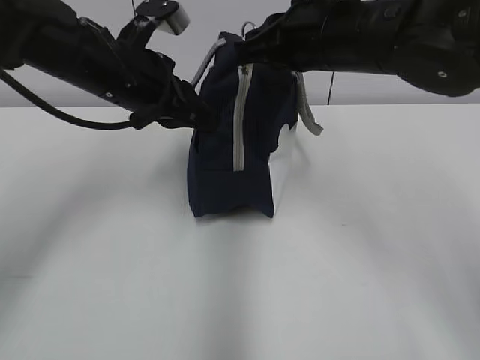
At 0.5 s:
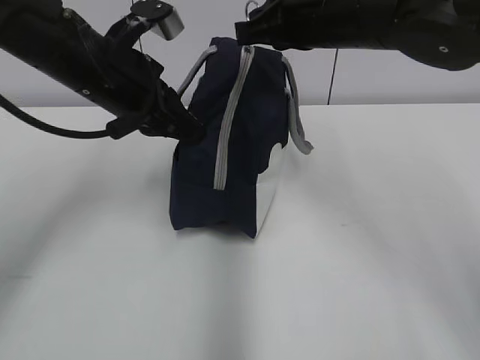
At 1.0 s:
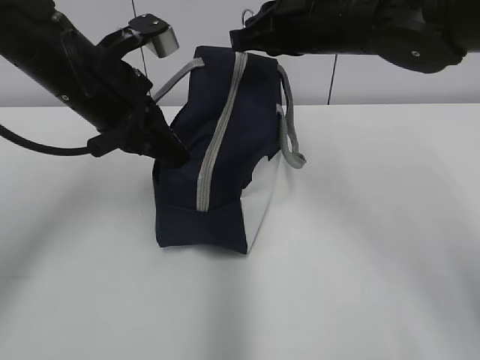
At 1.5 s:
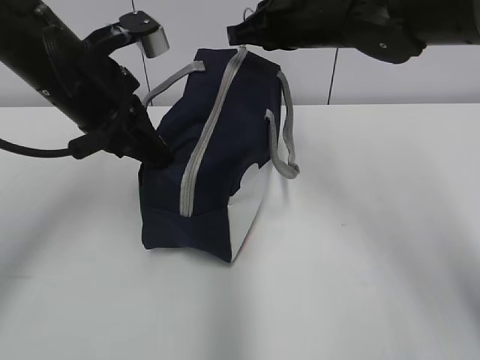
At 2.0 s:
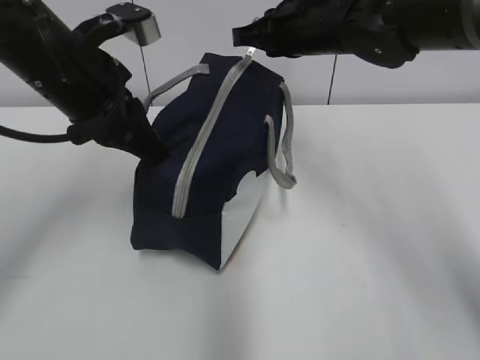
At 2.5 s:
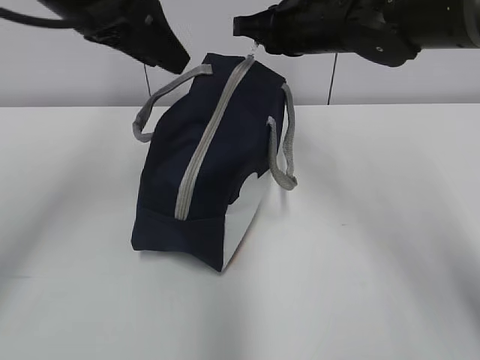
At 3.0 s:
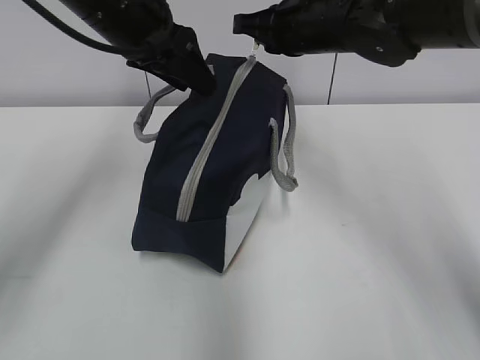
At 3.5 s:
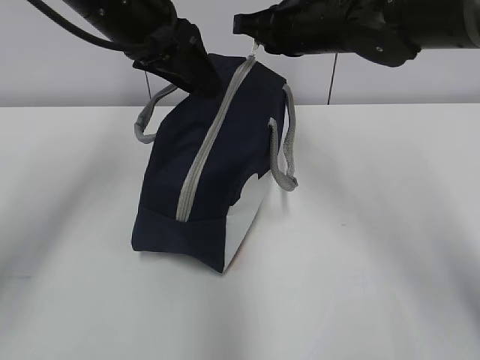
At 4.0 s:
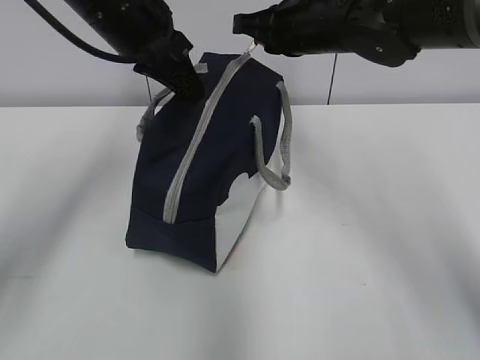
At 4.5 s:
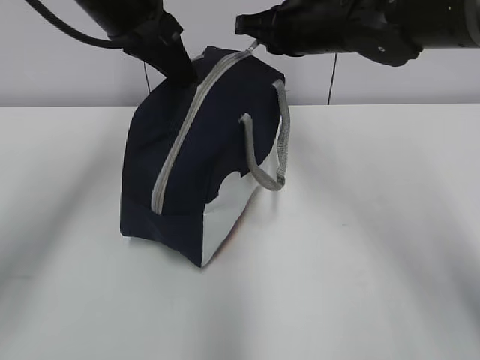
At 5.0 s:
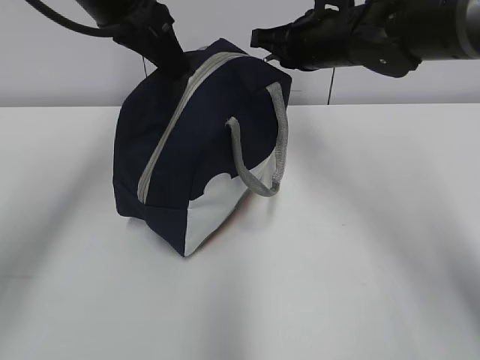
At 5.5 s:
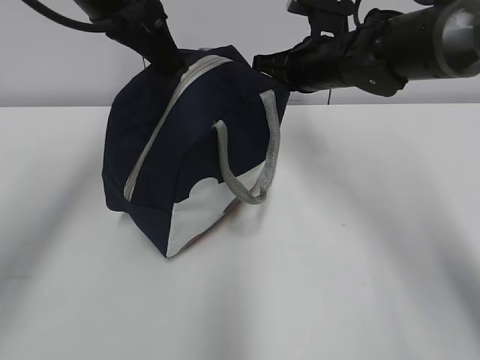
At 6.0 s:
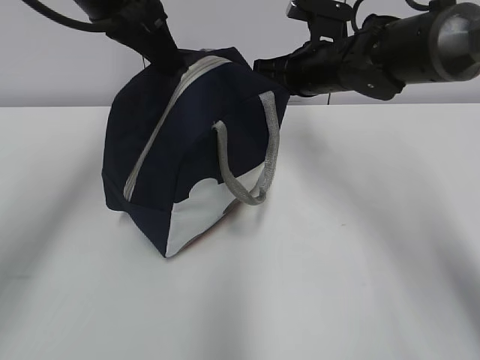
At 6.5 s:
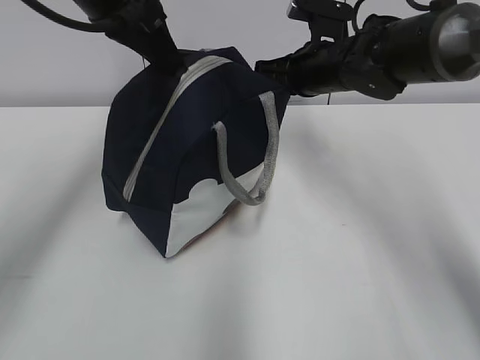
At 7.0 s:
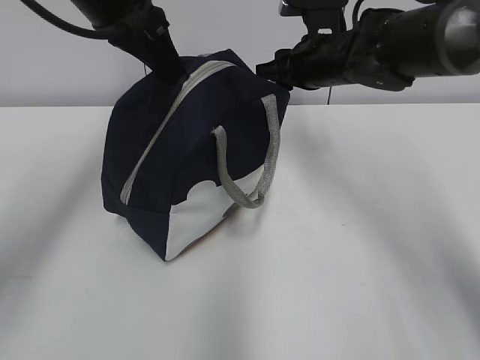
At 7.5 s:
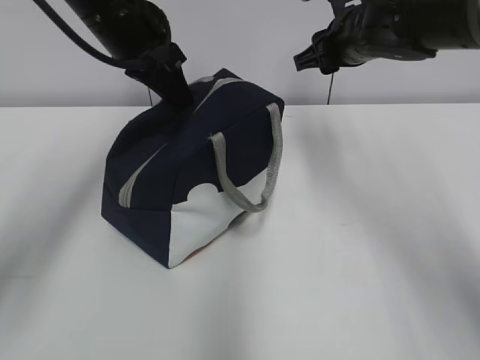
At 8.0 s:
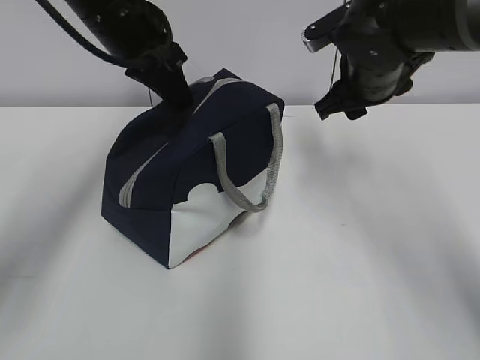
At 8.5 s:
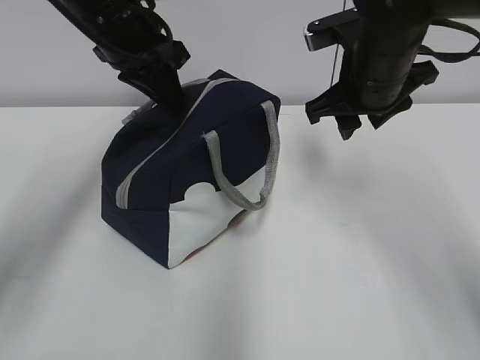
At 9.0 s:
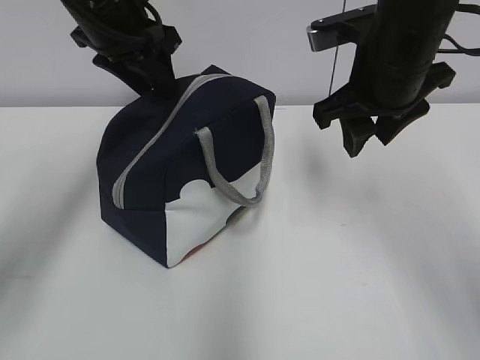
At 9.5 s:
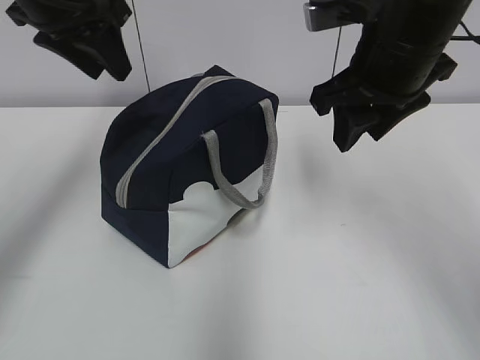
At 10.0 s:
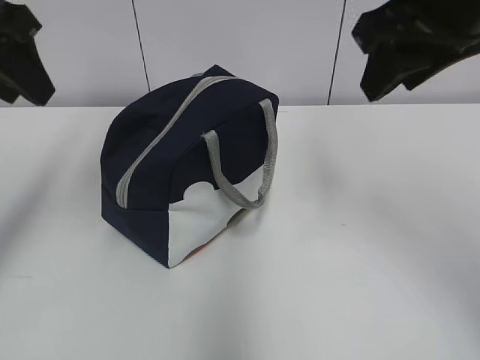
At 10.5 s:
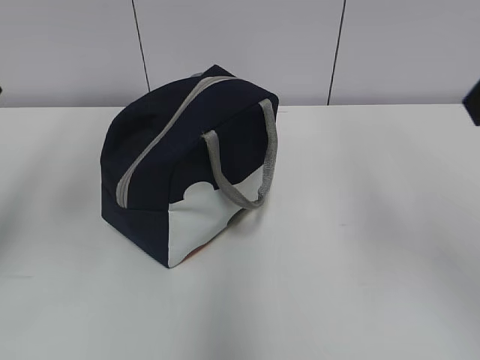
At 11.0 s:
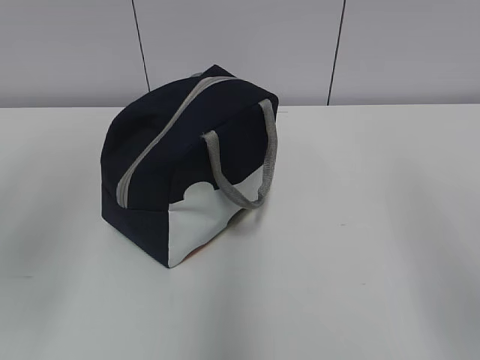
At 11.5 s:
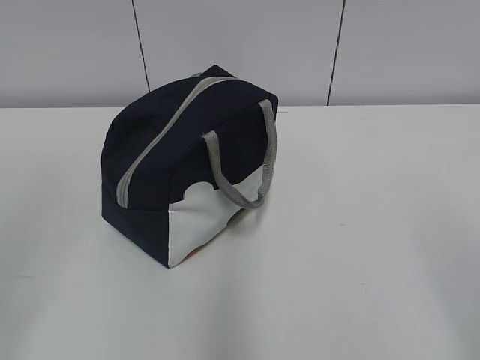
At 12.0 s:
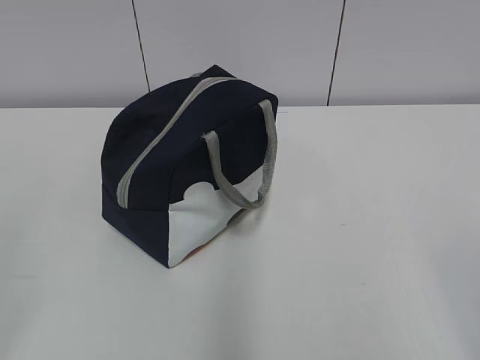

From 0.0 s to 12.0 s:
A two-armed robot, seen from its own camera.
Step, from 0.0 s to 6.5 s: Pull the zipper with your right hand.
Step, from 7.0 s to 8.5 s: Grab the lunch bag with your left hand.
From 0.0 s to 2.0 s: The left gripper moves about 5 cm. Meanwhile the right gripper moves forward, some 5 cm.
From 2.0 s to 4.0 s: The left gripper is displaced forward by approximately 5 cm, and opens and closes again.
From 4.0 s to 6.0 s: The right gripper heads downward, covering some 5 cm.
From 6.0 s to 8.0 s: The right gripper moves about 5 cm, and opens. Meanwhile the left gripper changes place by some 5 cm.
From 8.0 s to 10.0 s: The left gripper travels to the left, backward and upward by roughly 15 cm, and opens. The right gripper goes some 20 cm upward and backward.
From 10.0 s to 12.0 s: The left gripper is displaced backward by some 30 cm. The right gripper heads backward and to the right, covering some 30 cm.

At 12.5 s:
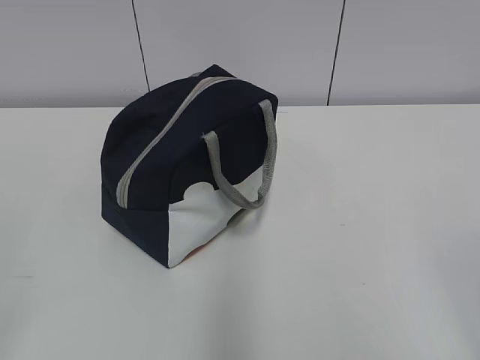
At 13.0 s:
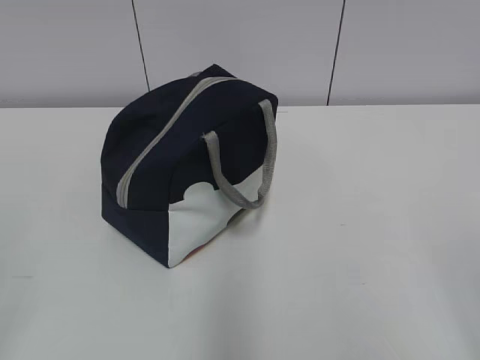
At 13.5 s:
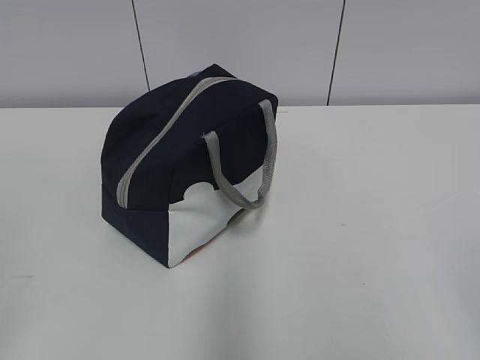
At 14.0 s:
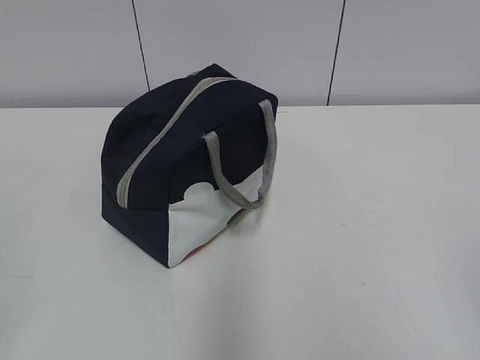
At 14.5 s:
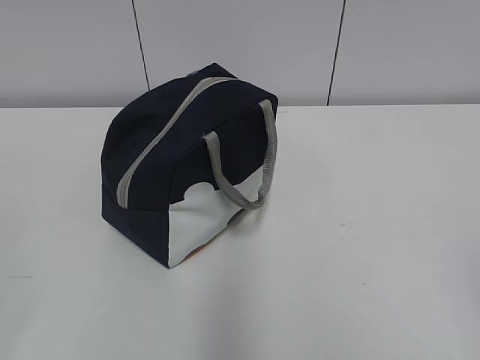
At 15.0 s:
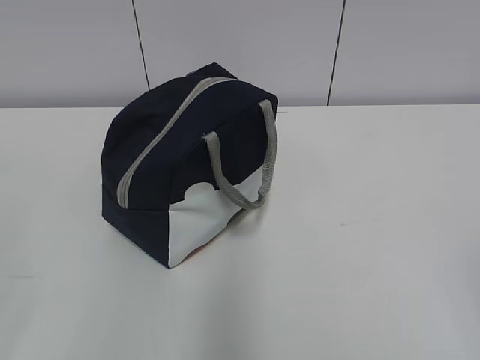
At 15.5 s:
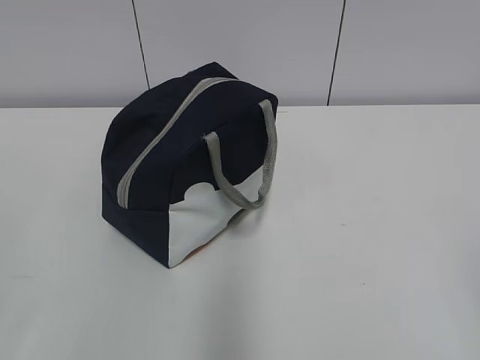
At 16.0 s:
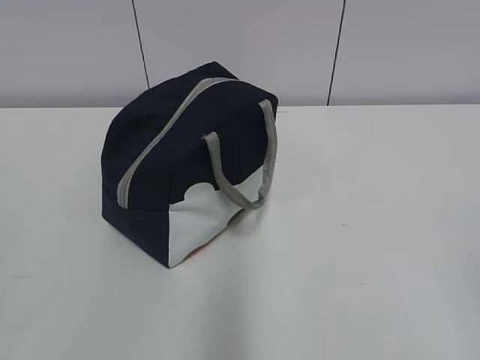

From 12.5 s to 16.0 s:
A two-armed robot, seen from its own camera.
From 14.5 s to 16.0 s: The two grippers keep their place.
